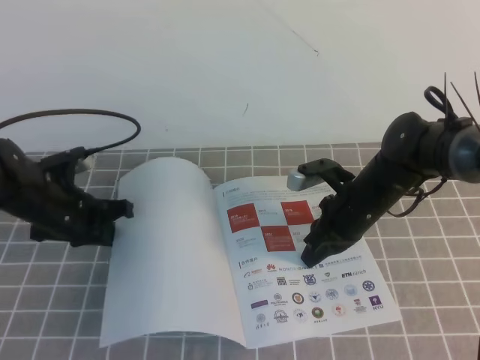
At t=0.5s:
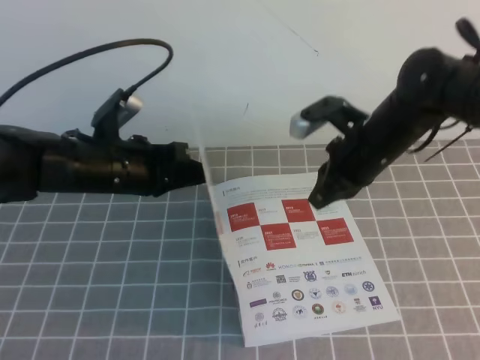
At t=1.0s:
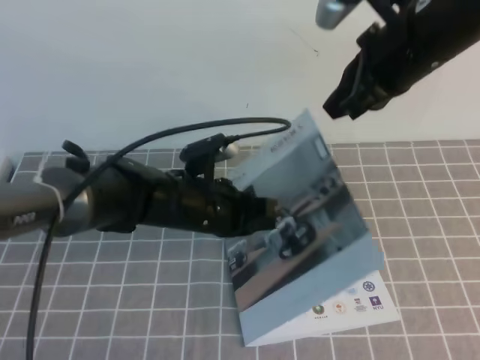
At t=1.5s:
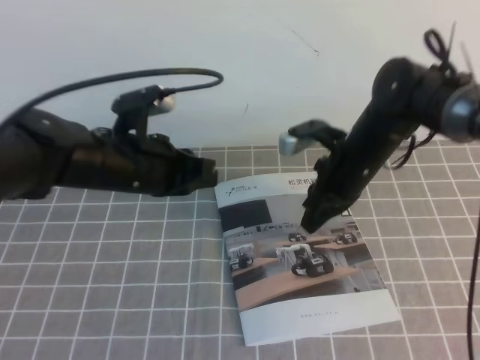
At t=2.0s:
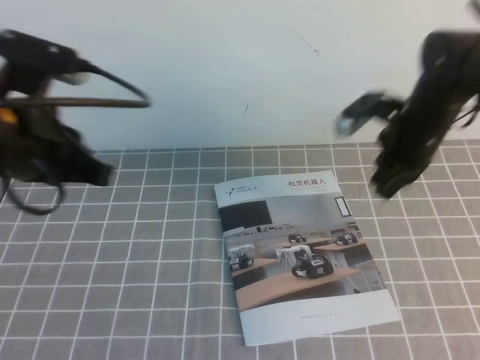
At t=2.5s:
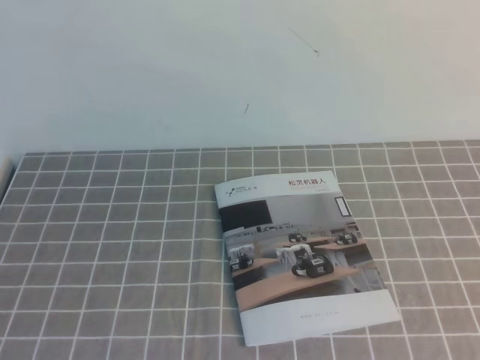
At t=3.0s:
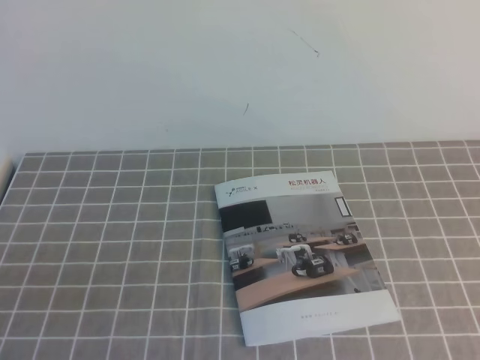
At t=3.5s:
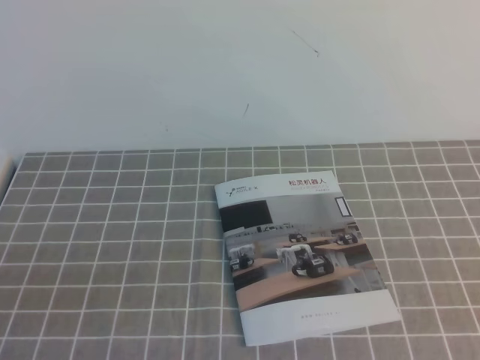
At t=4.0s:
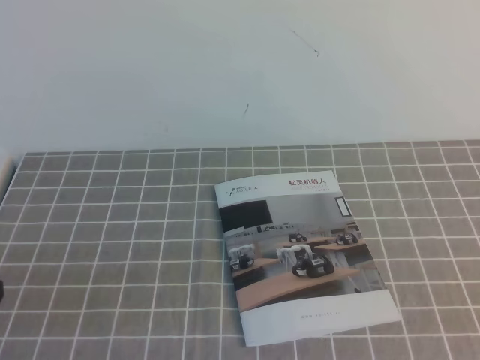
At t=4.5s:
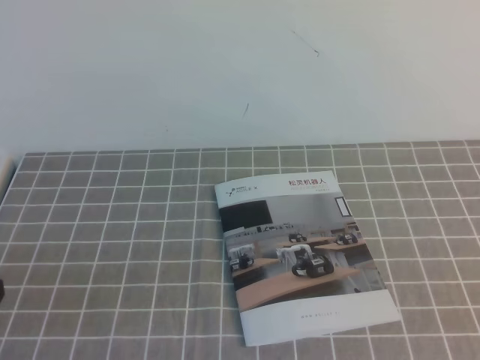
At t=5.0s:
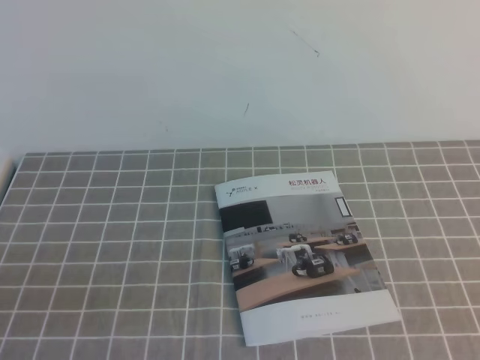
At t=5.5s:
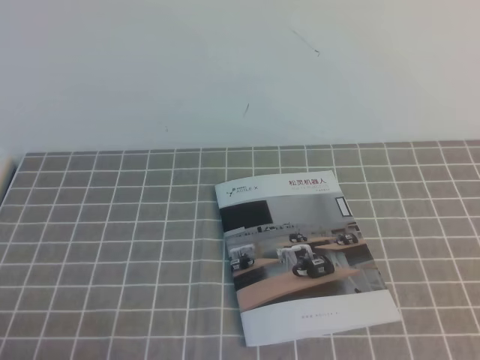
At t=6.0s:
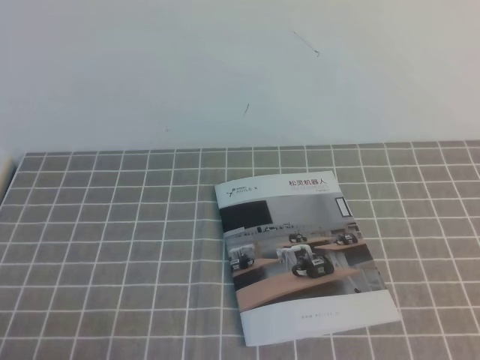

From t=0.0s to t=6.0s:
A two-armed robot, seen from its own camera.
Task of the whole recording: on the grey tablecloth, hold the book with one hand and close it with the other.
Step, from t=0.0s to t=6.0s: Close the open book.
From t=0.0s to t=2.0s: The right gripper is displaced upward and to the right by roughly 10 cm. Meanwhile the left gripper shifts roughly 20 cm upward and backward.
From t=2.0s to t=4.0s: The left gripper is displaced backward and downward by some 20 cm, while the right gripper travels backward by roughly 40 cm.
